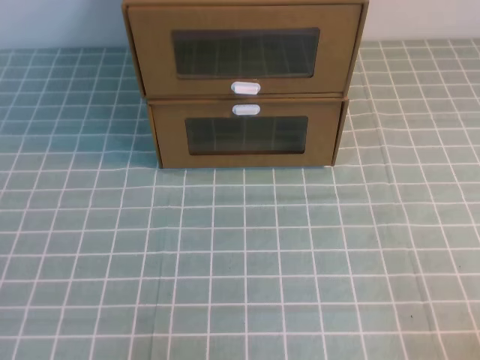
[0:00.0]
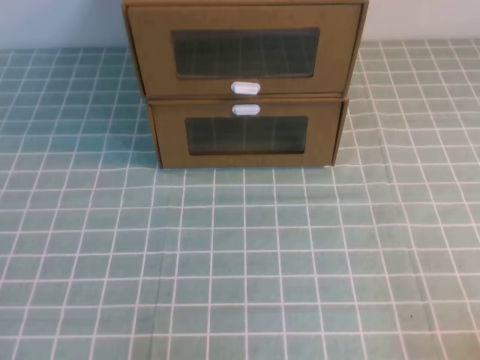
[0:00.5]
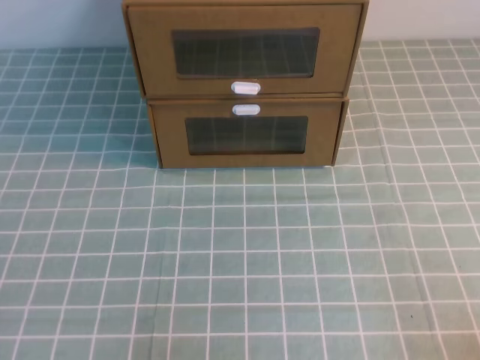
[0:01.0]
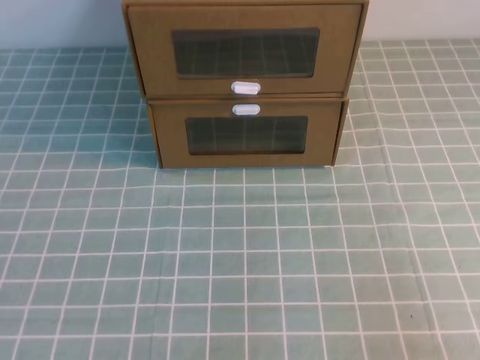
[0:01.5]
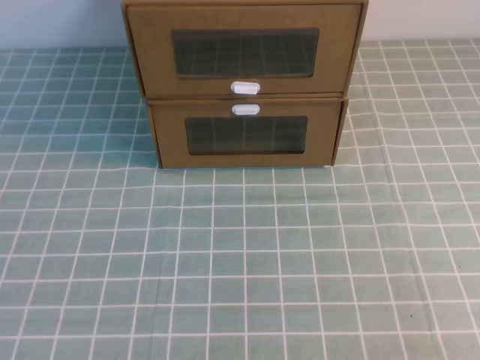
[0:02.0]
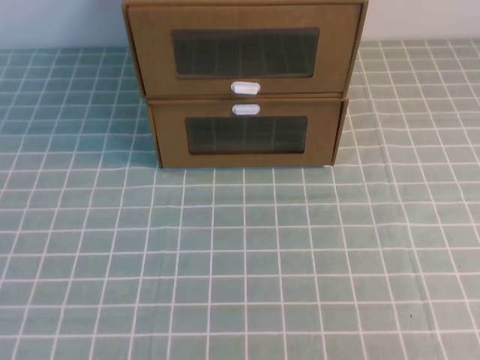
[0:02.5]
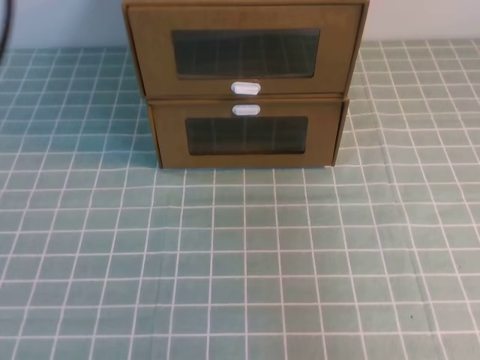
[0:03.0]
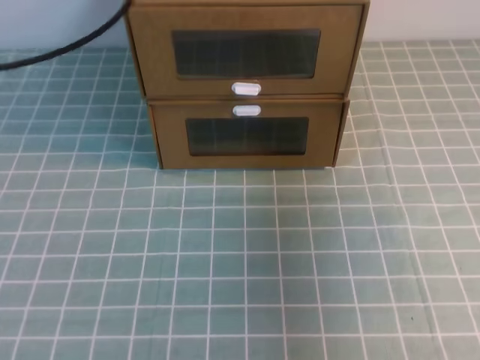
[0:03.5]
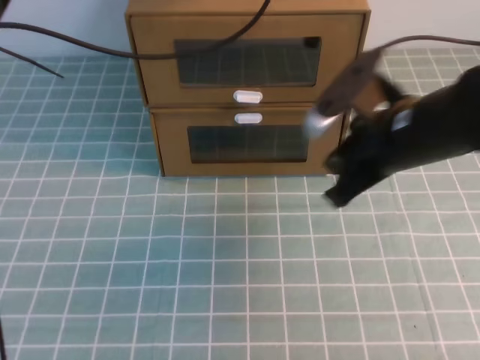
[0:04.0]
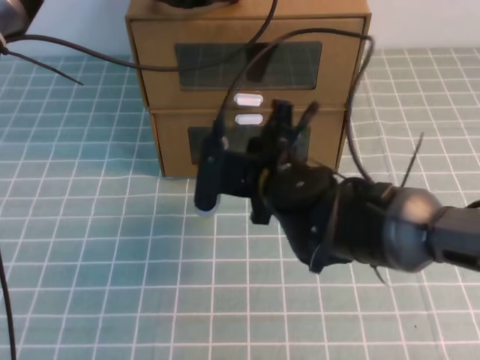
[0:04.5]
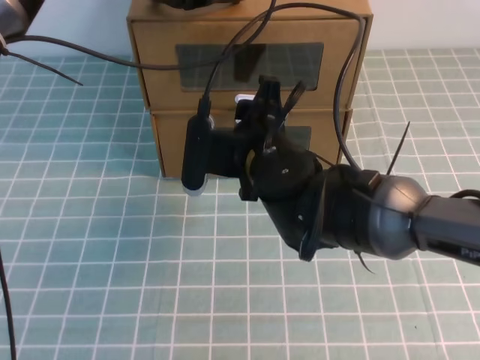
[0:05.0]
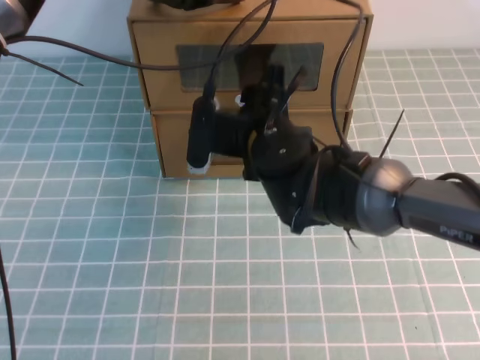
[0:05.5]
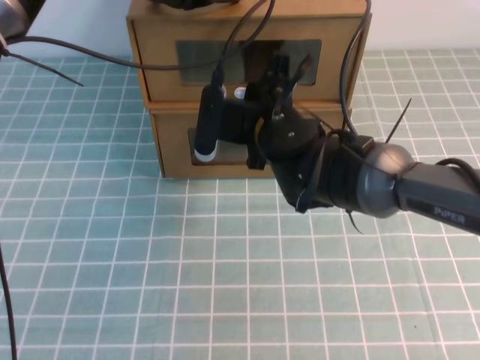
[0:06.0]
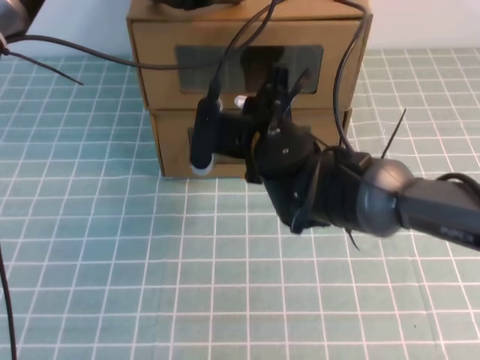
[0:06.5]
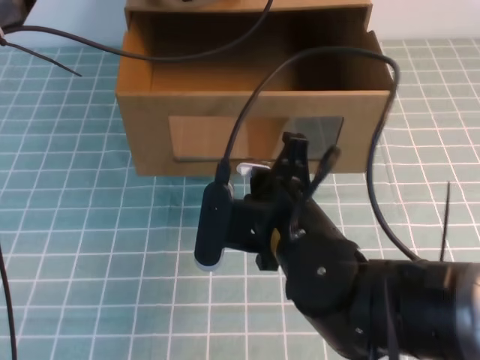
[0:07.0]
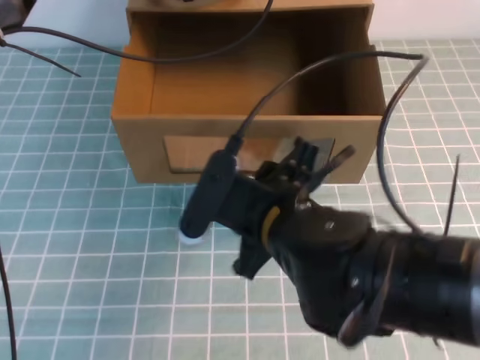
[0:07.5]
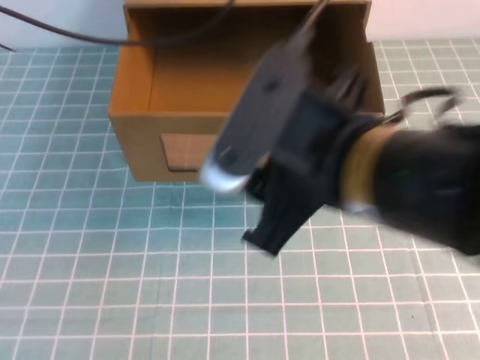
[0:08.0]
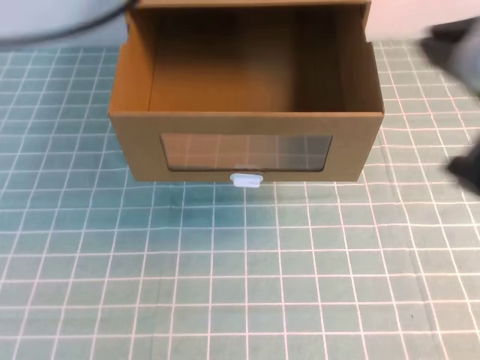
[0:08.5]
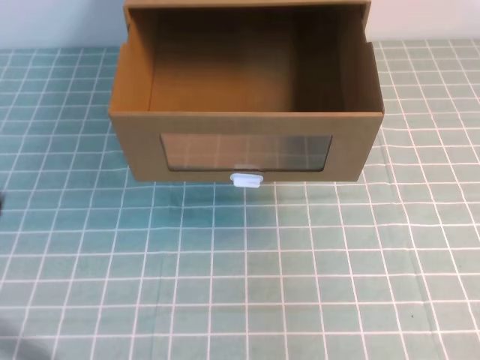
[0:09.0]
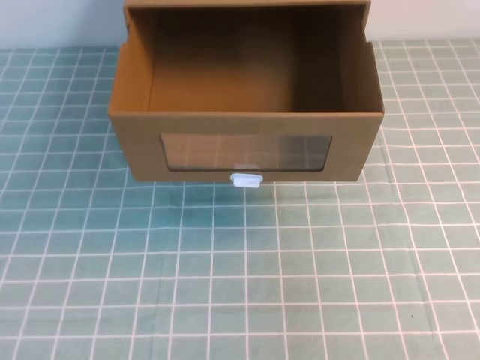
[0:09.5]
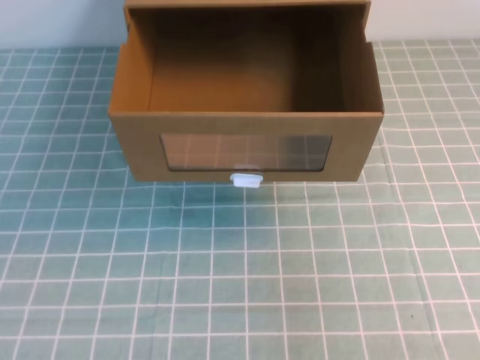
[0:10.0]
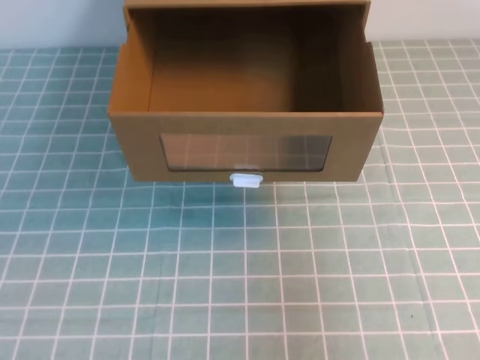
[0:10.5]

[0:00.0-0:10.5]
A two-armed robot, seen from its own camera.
Task of the whole recording: open the shoebox on the cyan tablecloth.
0:02.0 to 0:04.0: The left gripper is displaced forward, to the right and upward by about 50 cm; the right gripper travels forward and to the left by roughly 35 cm.
0:04.0 to 0:06.5: The right gripper shifts some 15 cm to the left, and opens and closes again. The left gripper moves about 5 cm.
0:06.5 to 0:08.5: The right gripper goes approximately 35 cm backward, upward and to the right, and opens and closes again; the left gripper shifts about 25 cm backward, upward and to the left.
0:08.5 to 0:10.5: The left gripper is displaced downward and backward by roughly 35 cm; the right gripper travels to the right, downward and backward by about 15 cm.

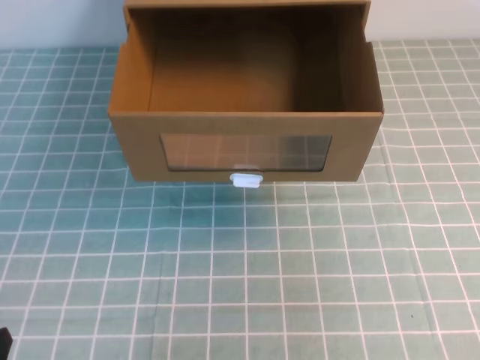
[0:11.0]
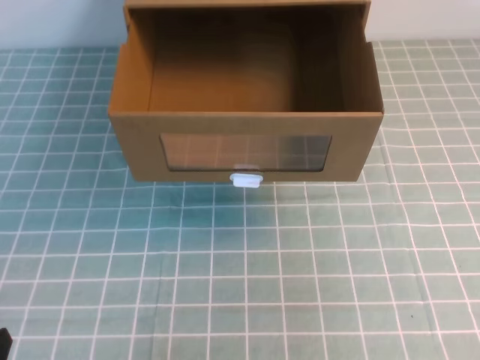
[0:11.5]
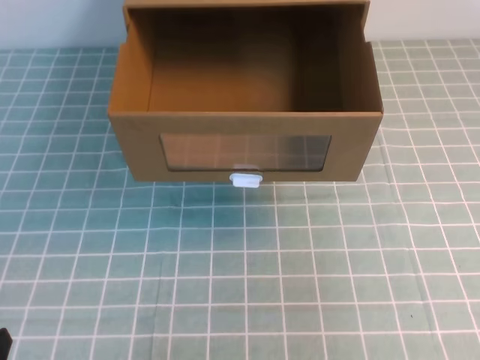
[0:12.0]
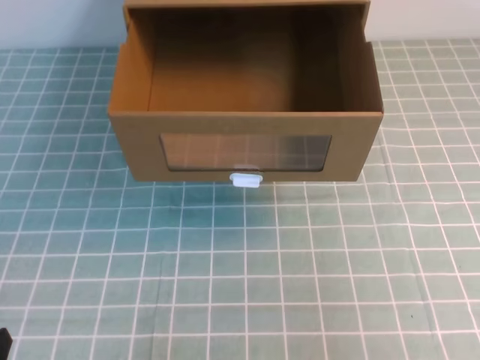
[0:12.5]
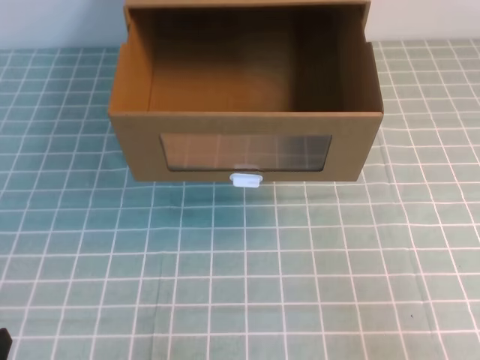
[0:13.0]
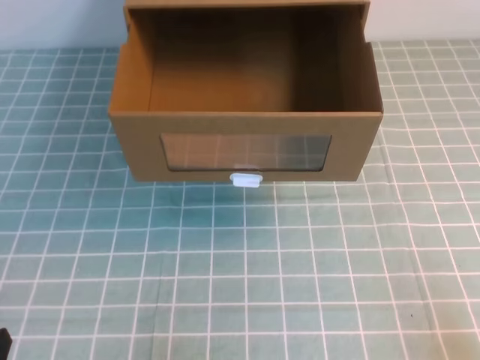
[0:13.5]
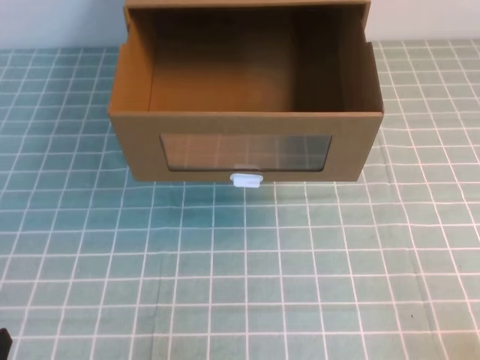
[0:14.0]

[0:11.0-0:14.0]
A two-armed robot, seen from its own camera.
Task of the whole recording: open the shoebox on the cyan tablecloth.
0:12.5 to 0:14.0: The right gripper heads downward, covering approximately 20 cm.

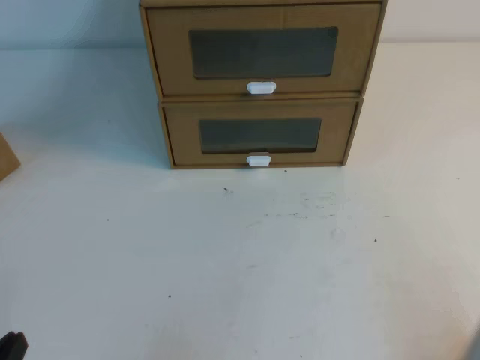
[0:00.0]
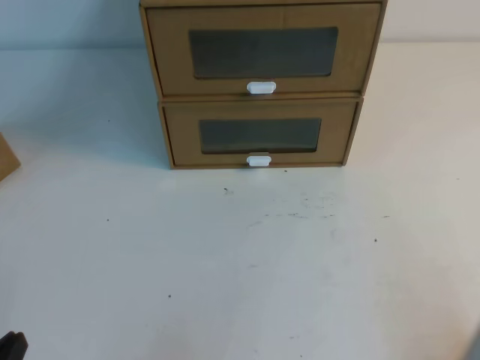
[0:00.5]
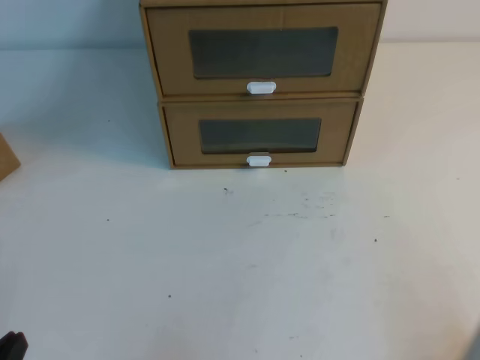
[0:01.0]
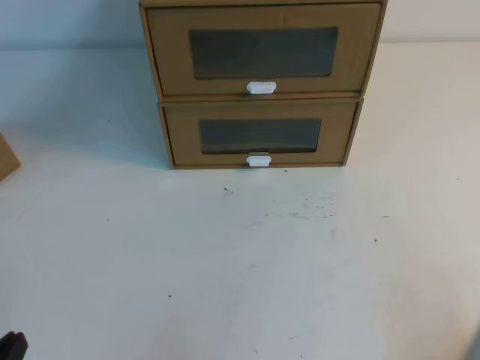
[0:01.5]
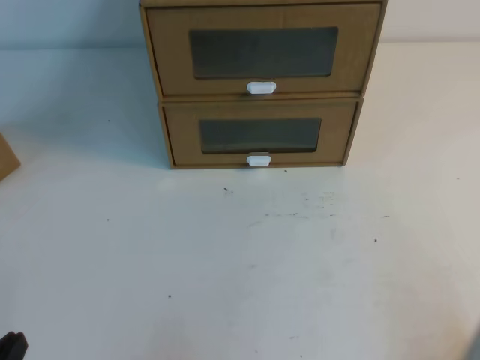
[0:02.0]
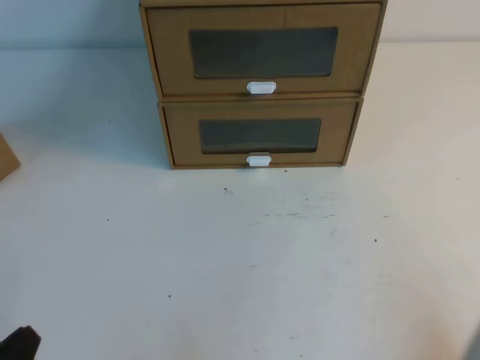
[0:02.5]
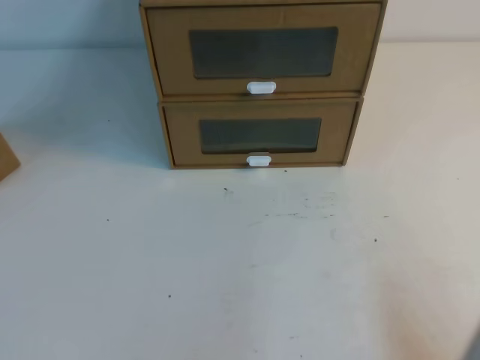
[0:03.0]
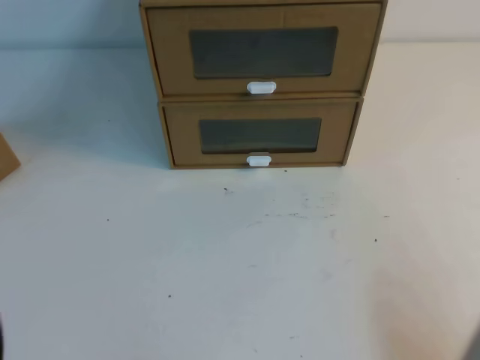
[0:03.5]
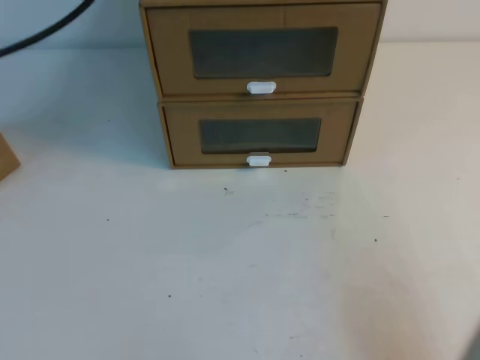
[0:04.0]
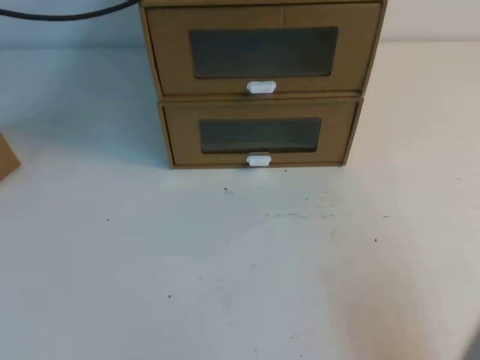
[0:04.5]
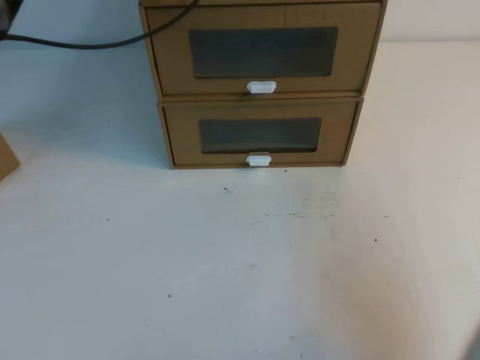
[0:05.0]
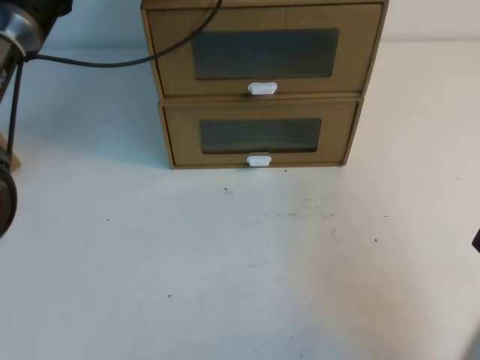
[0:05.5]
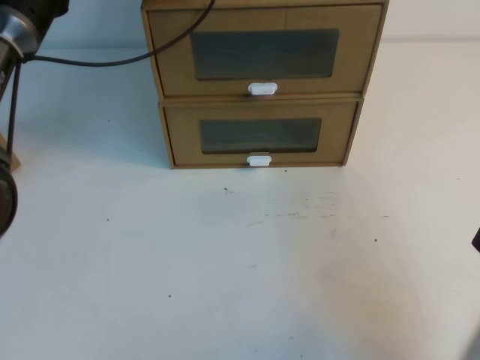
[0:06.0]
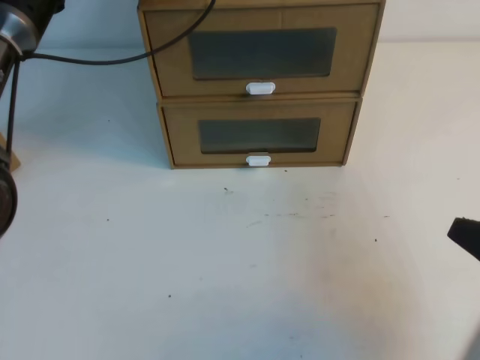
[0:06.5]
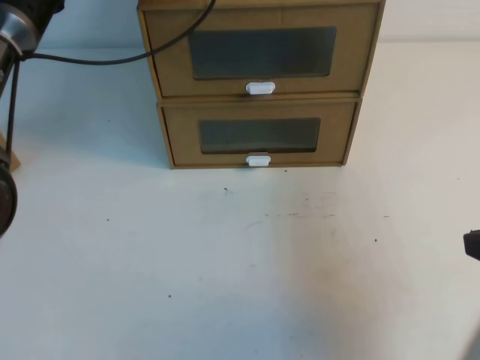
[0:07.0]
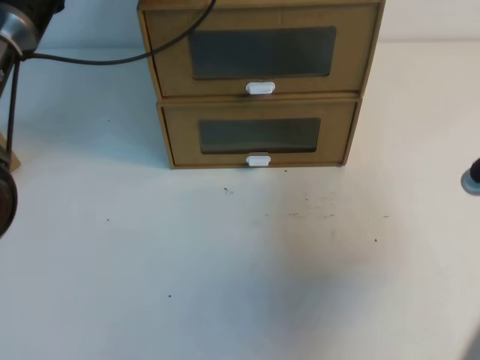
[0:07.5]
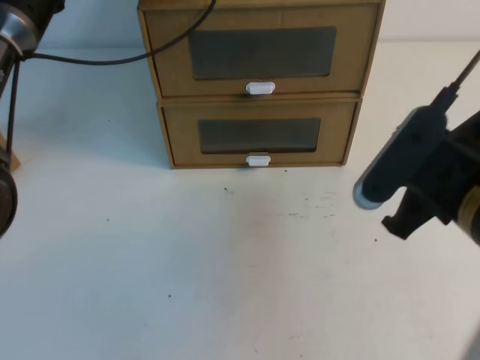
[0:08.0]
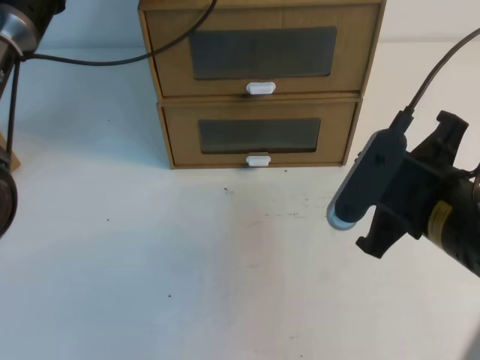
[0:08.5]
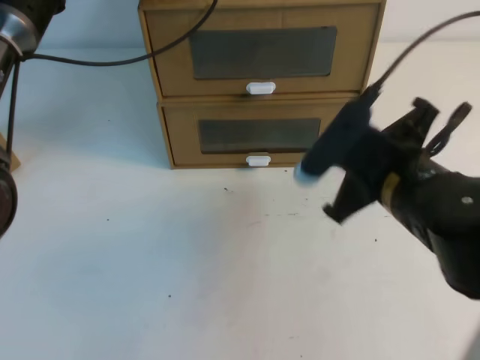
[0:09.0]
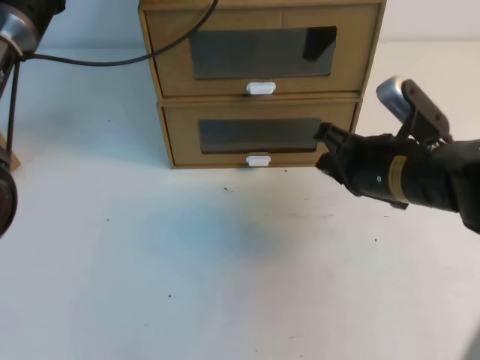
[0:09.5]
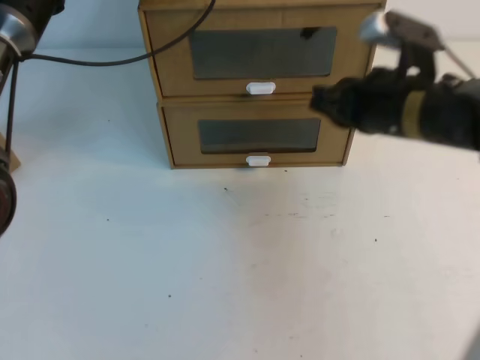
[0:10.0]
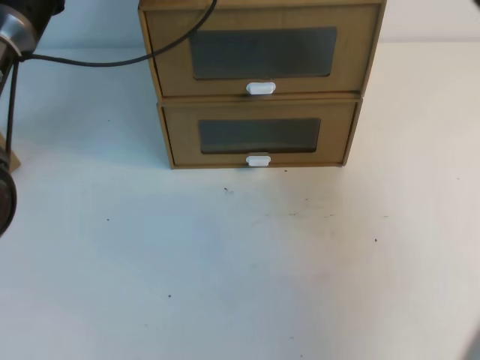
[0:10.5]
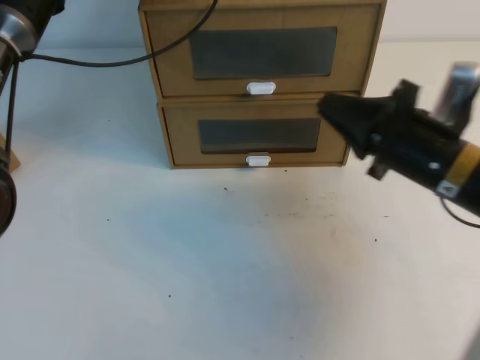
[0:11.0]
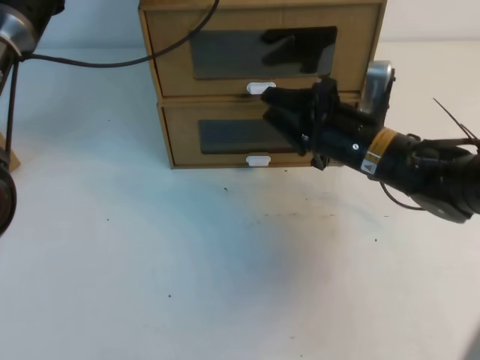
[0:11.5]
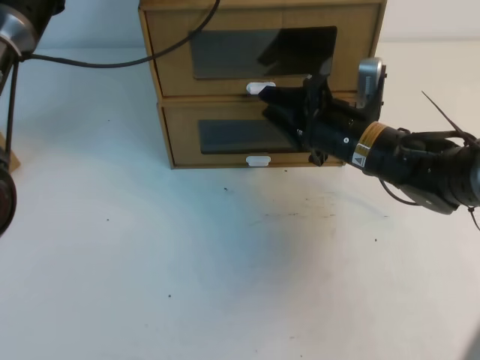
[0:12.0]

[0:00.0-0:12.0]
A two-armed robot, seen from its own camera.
Task of the whole recording: open the shoebox on the table.
0:00.0 to 0:02.0: The two grippers keep their place.
0:02.0 to 0:04.0: The right gripper goes roughly 5 cm upward. The left gripper moves upward and forward, approximately 40 cm.
0:04.0 to 0:06.0: The right gripper is displaced forward by approximately 5 cm. Meanwhile the left gripper is displaced forward and downward by roughly 30 cm.
0:06.0 to 0:08.0: The right gripper is displaced to the left, forward and upward by roughly 15 cm.
0:08.0 to 0:10.0: The right gripper shifts approximately 10 cm forward.
0:10.0 to 0:12.0: The right gripper goes approximately 10 cm downward and forward, goes to the right and returns, about 10 cm each way, and opens its fingers.
